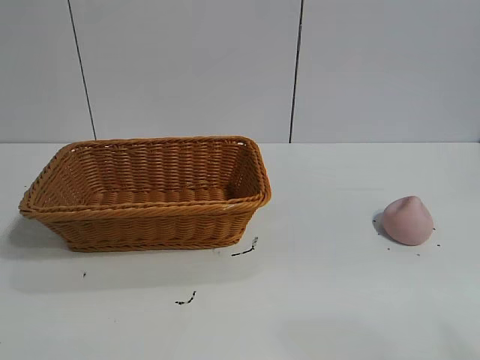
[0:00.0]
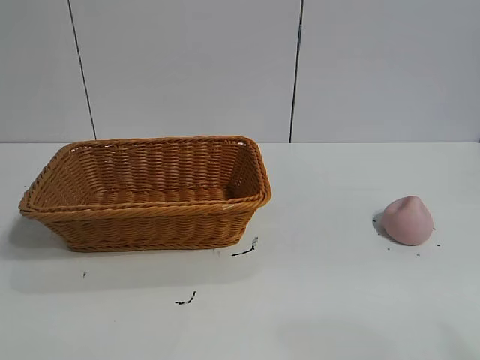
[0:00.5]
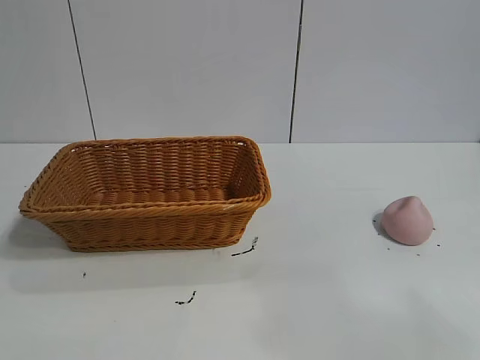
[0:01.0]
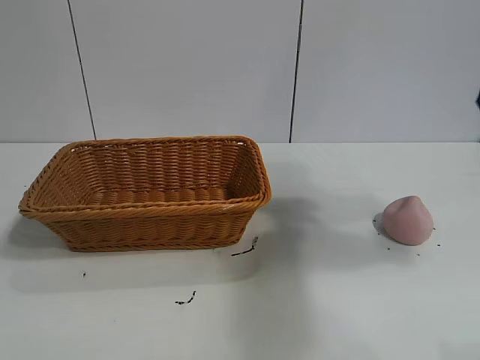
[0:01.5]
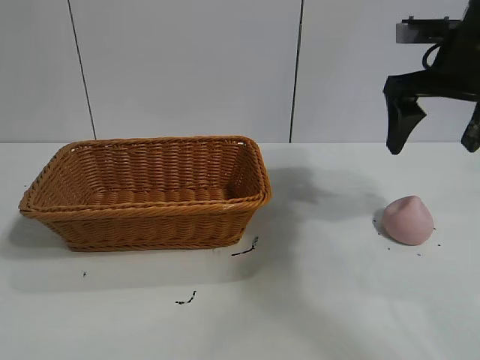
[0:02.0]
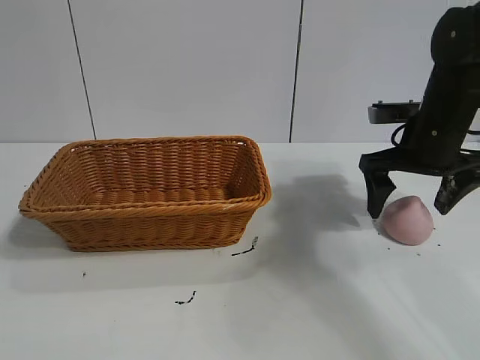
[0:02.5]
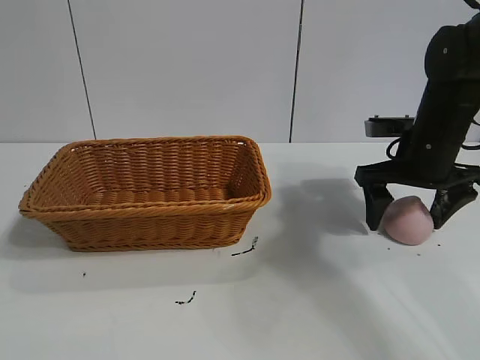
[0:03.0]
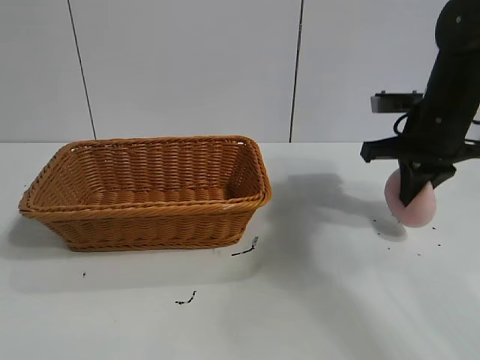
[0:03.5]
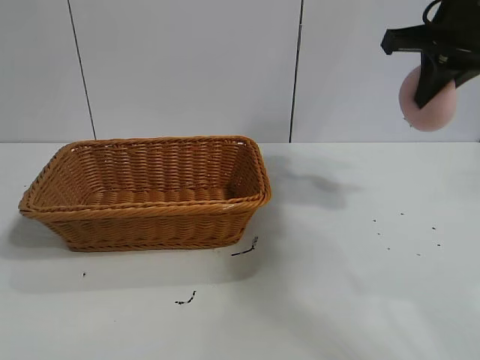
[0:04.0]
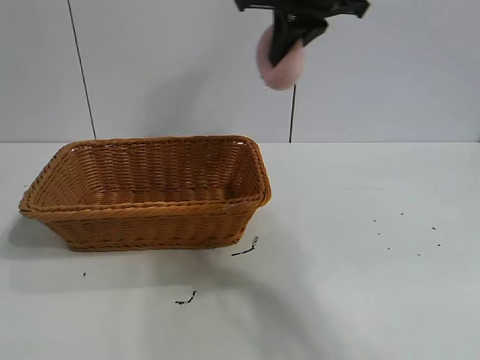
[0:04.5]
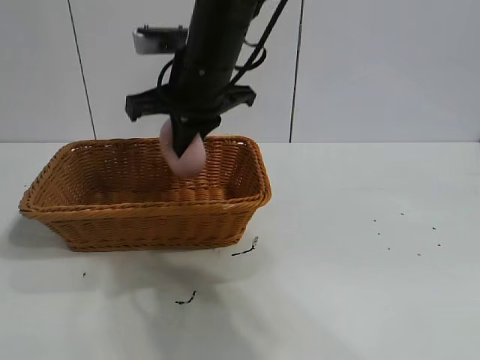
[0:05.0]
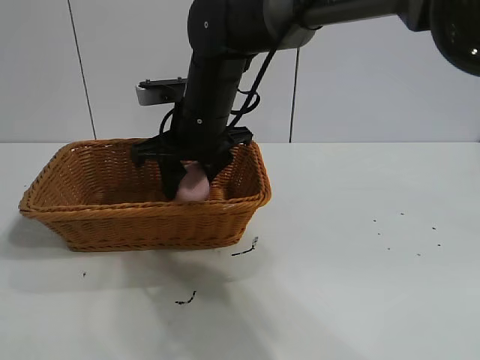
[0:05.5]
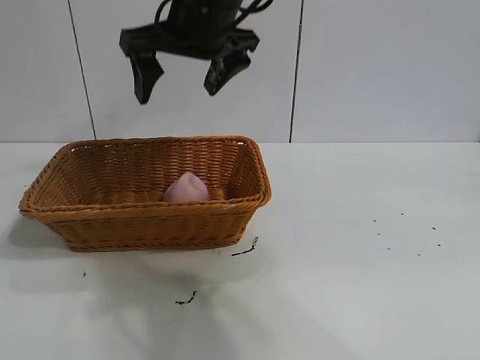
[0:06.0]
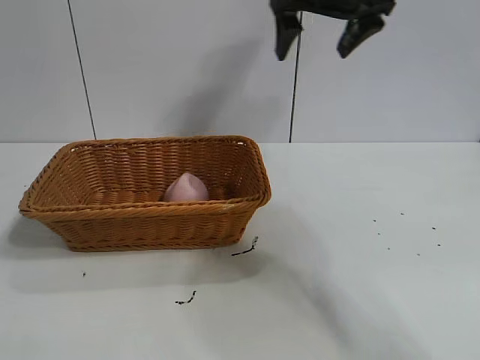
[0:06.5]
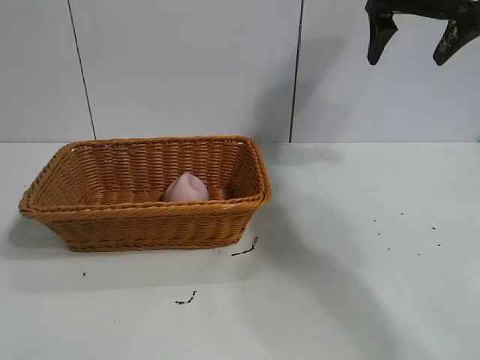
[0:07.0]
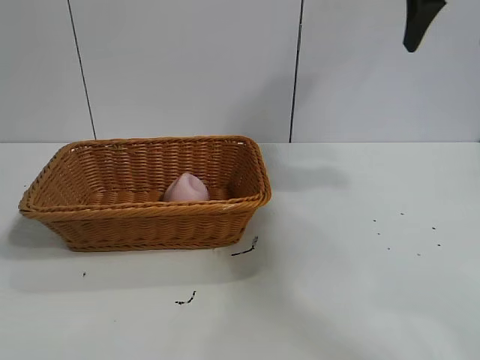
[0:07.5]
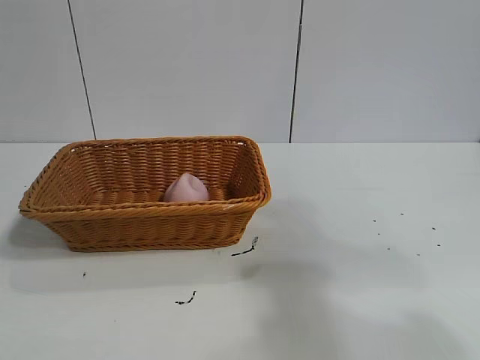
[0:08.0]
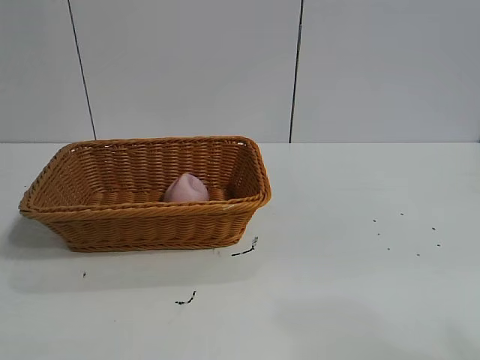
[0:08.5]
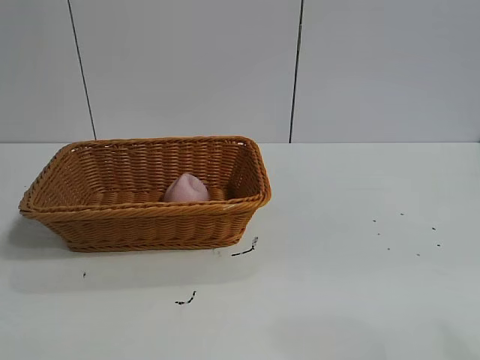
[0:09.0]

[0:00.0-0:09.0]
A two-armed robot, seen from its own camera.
Task of the whole recording: pick up the peach and put it into the basket.
Step, 0:01.0 to 0:03.0: Grasp the peach with right gripper.
Step, 0:04.0 to 0:05.5: Place the peach in the basket with right gripper.

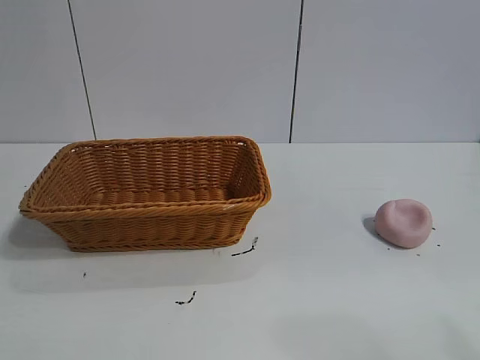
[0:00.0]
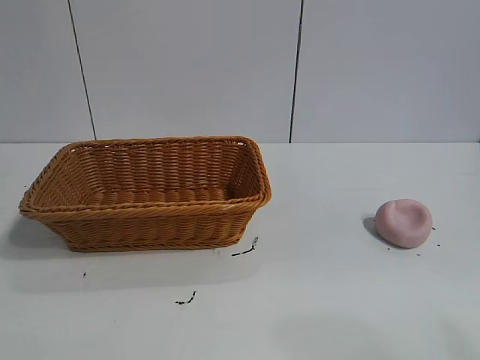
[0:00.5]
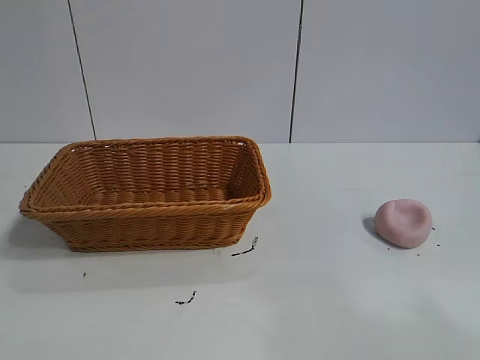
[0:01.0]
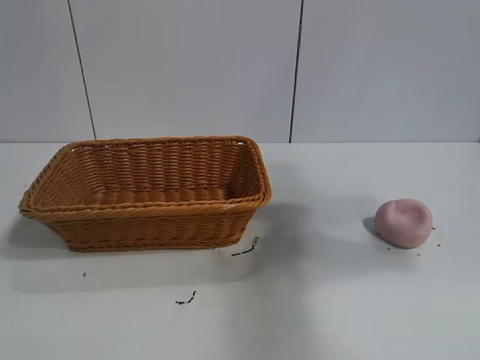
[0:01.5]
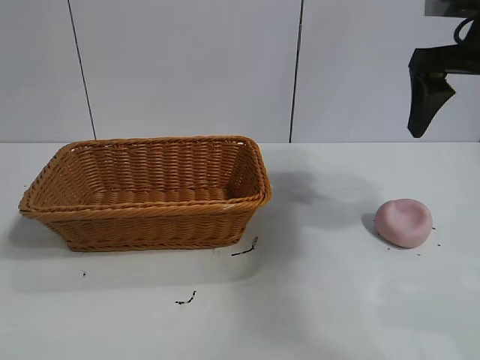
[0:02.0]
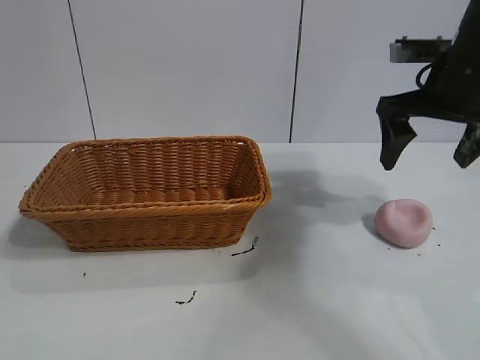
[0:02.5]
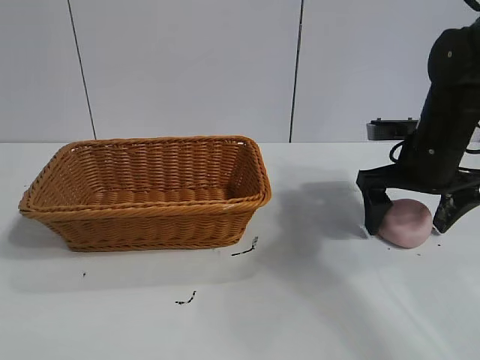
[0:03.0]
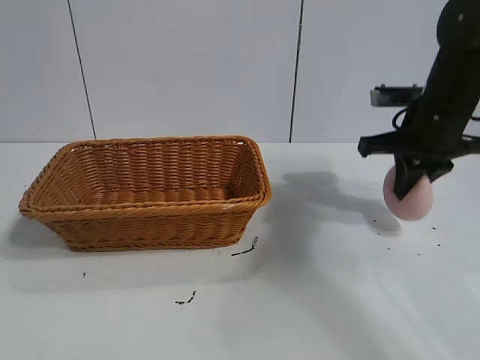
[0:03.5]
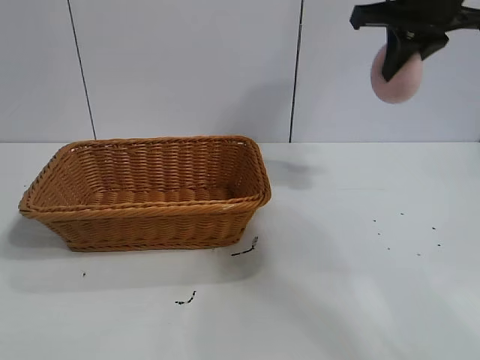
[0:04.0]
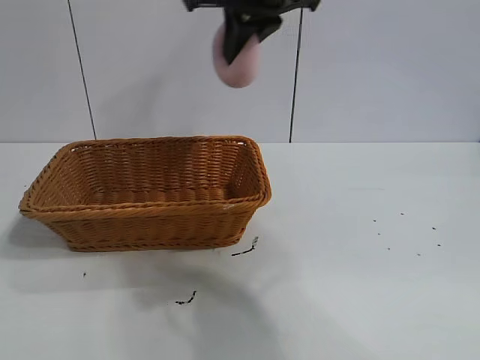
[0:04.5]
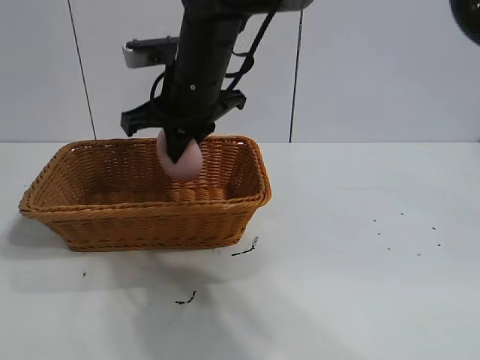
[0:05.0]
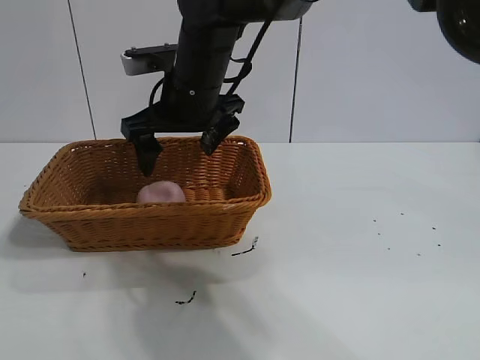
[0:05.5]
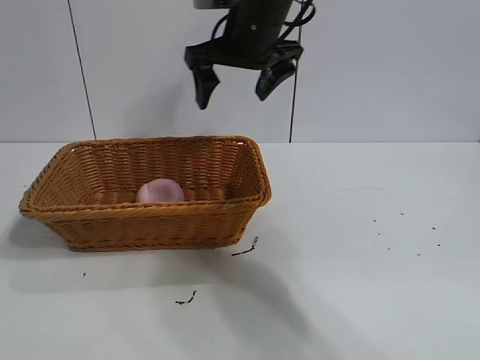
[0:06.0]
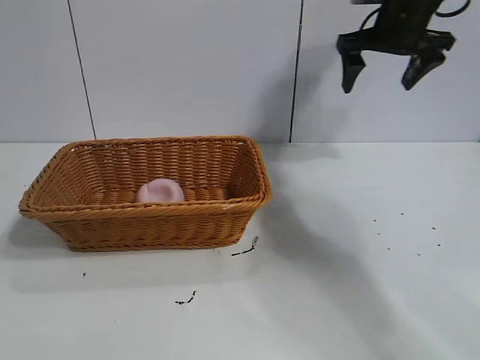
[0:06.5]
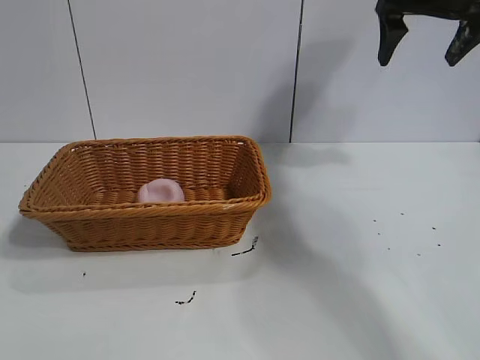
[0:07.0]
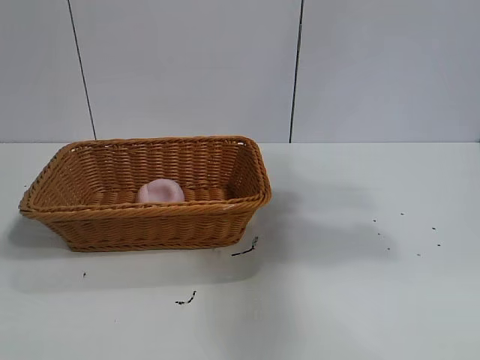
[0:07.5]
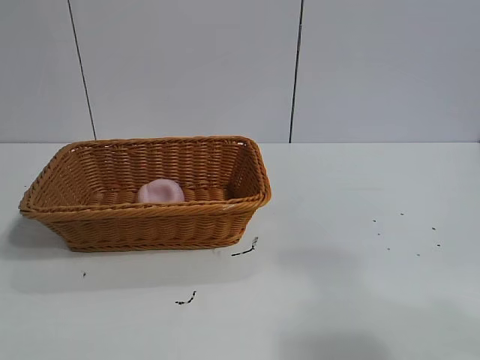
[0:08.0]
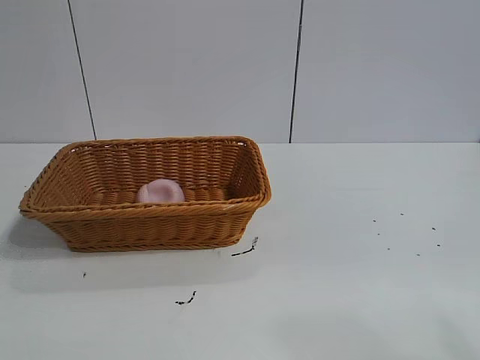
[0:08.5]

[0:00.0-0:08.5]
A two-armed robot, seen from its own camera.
Task of the whole recording: pick up the peach and put it into the basket.
Step, 0:01.0 to 0:03.0: Grasp the peach with right gripper.
Step, 0:03.5 to 0:05.0: Place the peach in the basket with right gripper.
